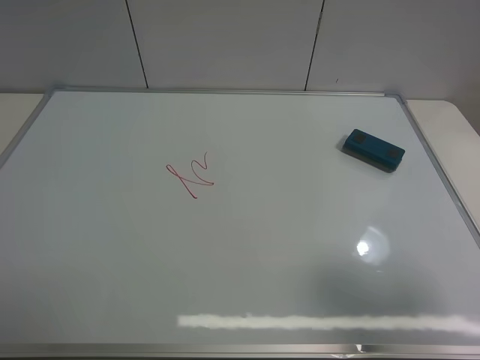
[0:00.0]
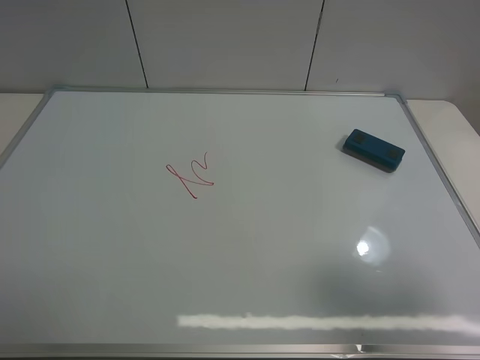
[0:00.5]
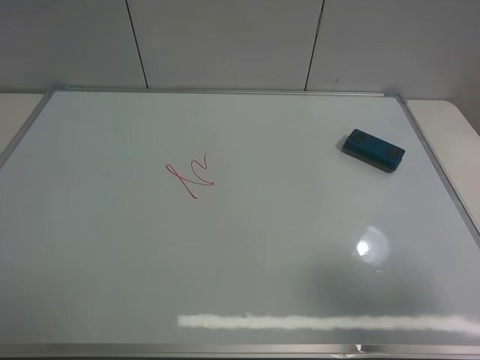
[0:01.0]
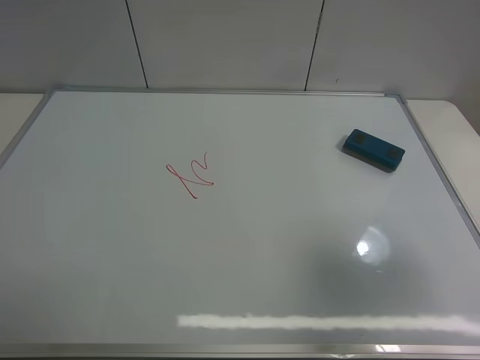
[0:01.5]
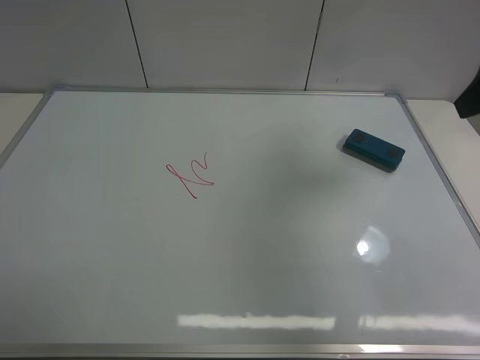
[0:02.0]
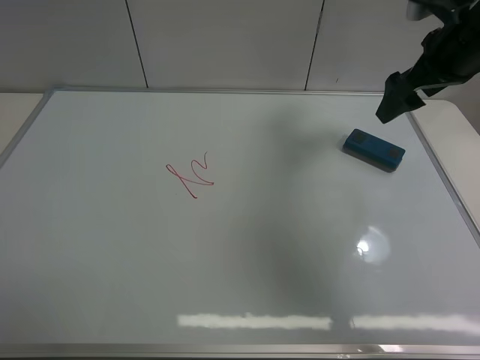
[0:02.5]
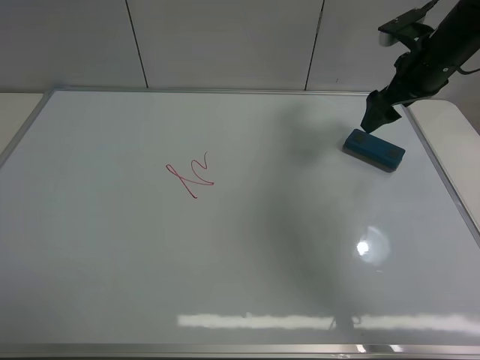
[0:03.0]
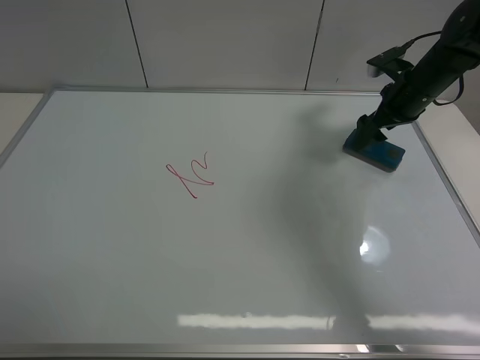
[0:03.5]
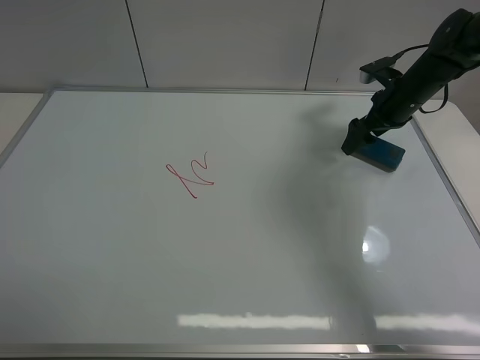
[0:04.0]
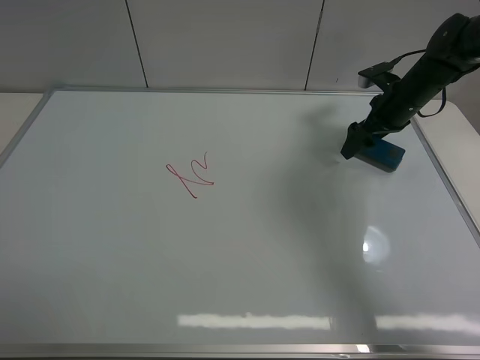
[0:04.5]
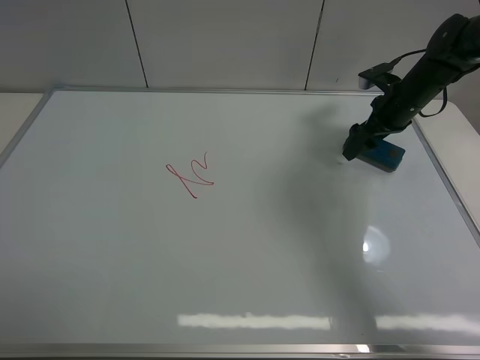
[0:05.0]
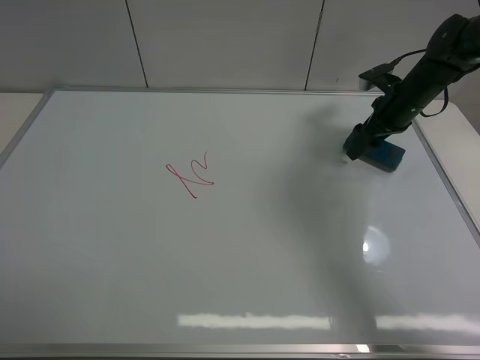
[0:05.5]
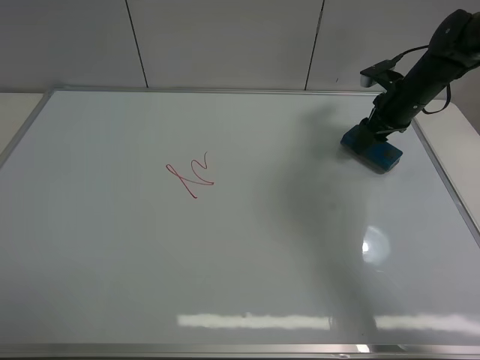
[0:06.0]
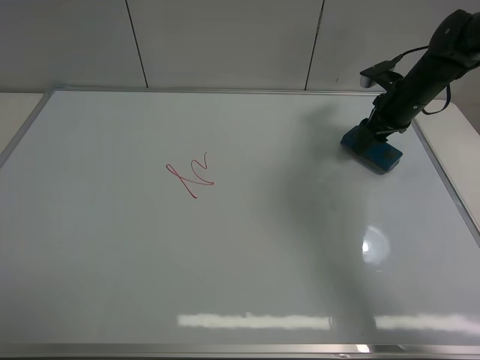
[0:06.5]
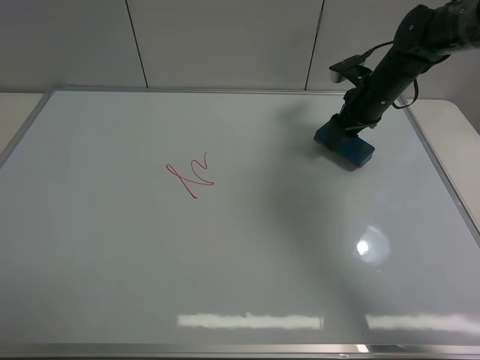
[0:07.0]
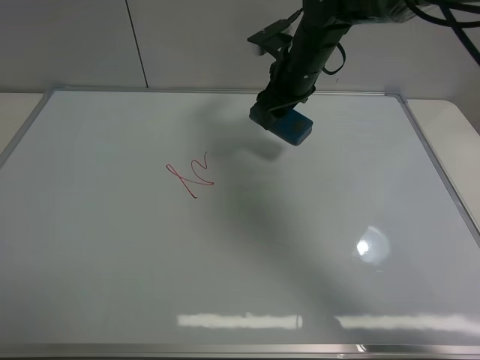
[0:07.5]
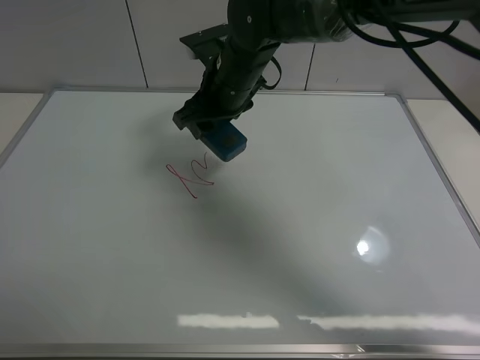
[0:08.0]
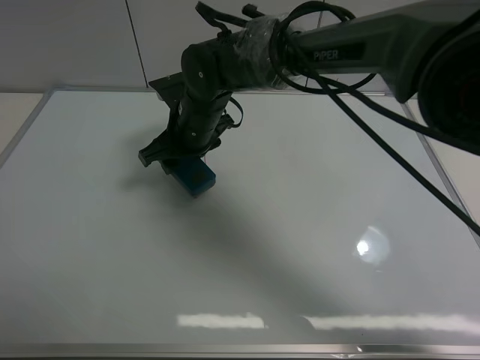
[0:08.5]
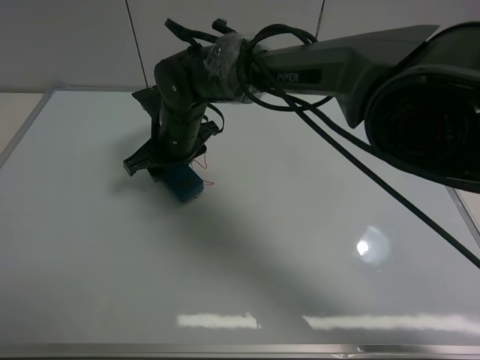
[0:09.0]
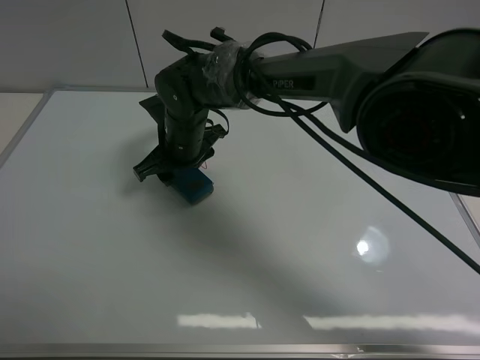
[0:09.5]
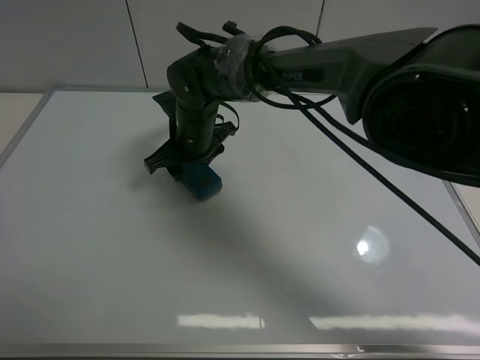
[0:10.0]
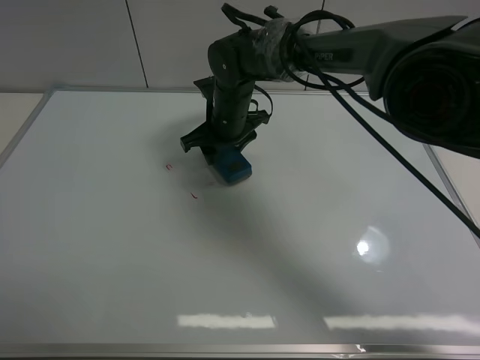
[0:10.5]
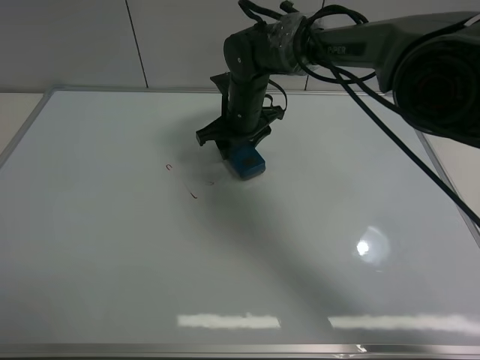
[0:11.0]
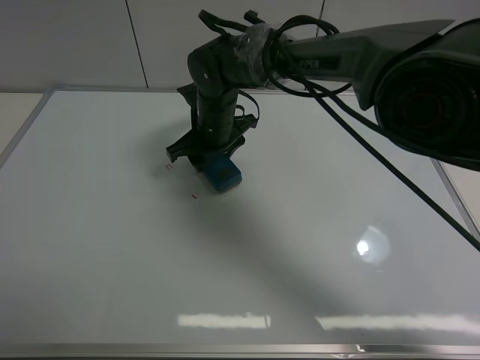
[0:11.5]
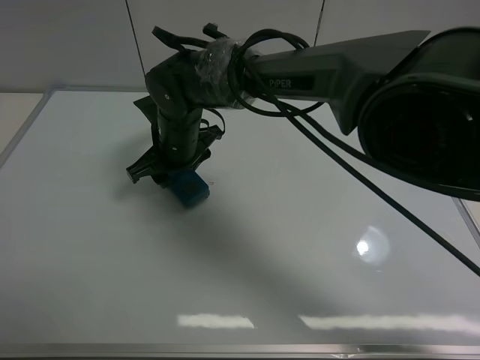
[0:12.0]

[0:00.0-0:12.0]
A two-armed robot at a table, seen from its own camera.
Task of the whole recording: use the right gripper to pick up the board eraser, wipe the notes on the whiteboard clean, and then put them back in place.
Step, 0:00.0 to 0:06.5: Pick up the board eraser with right gripper.
0:00.0 to 0:02.0: The right gripper travels forward by roughly 20 cm.
0:02.0 to 0:04.0: The right gripper goes some 30 cm forward and downward.
0:04.0 to 0:06.0: The right gripper closes up.
0:06.0 to 0:08.0: The right gripper shifts approximately 30 cm to the left.
0:08.0 to 0:10.0: The right gripper goes some 5 cm downward.
0:10.0 to 0:12.0: The right gripper travels to the right and back again, roughly 5 cm each way.

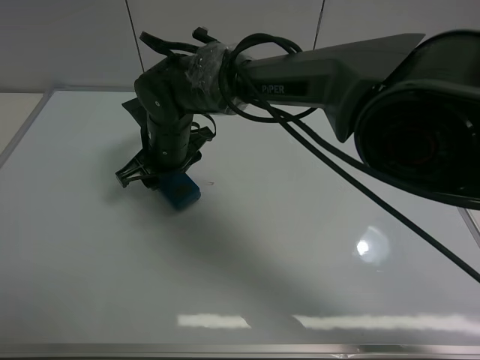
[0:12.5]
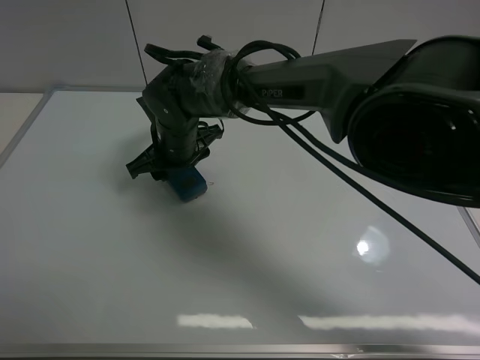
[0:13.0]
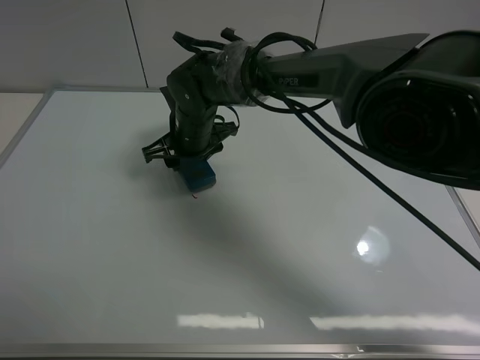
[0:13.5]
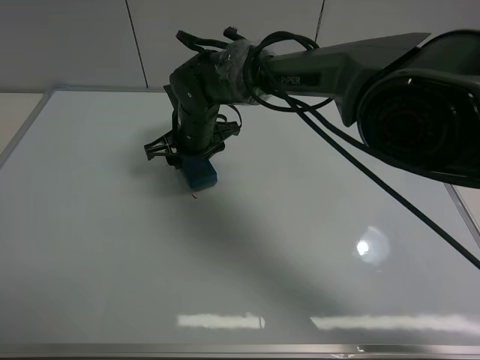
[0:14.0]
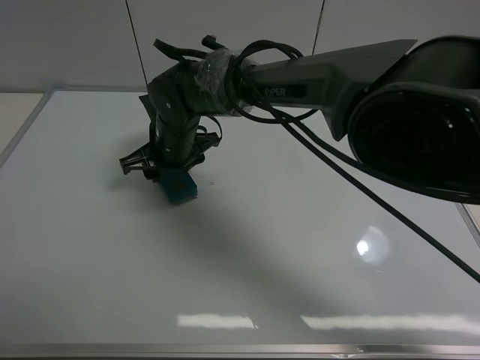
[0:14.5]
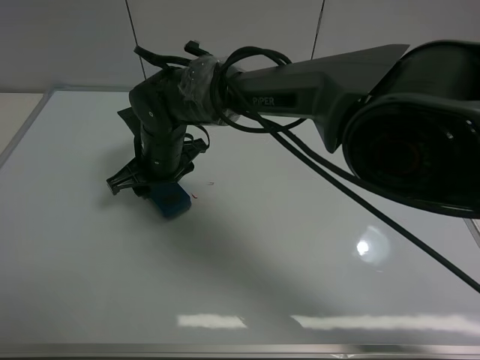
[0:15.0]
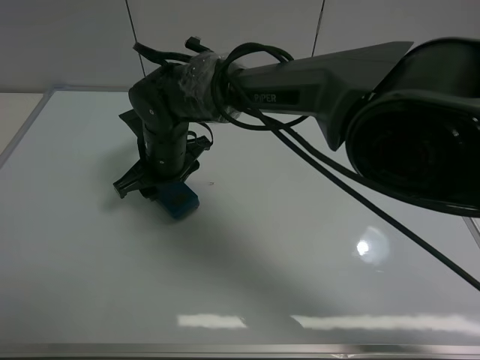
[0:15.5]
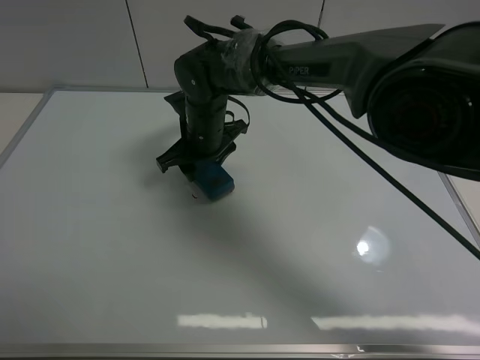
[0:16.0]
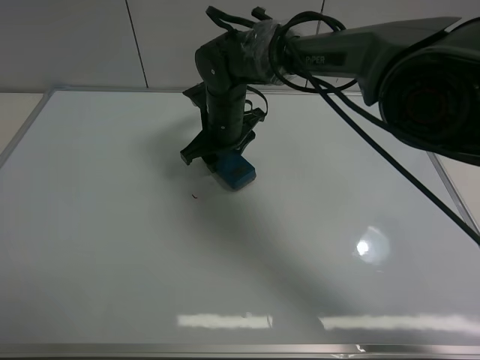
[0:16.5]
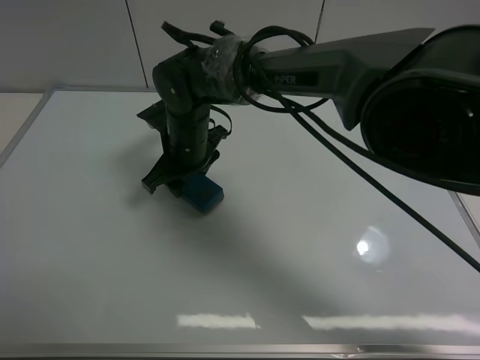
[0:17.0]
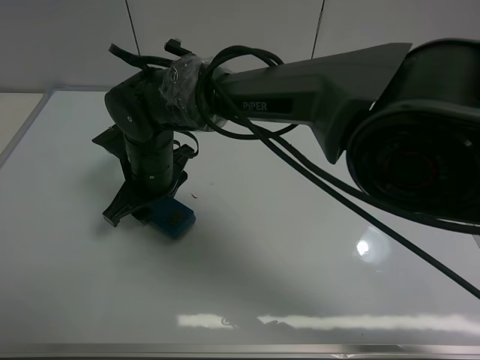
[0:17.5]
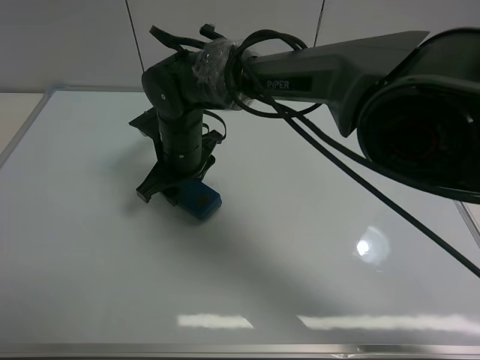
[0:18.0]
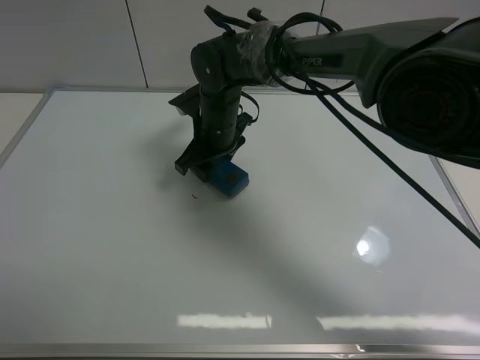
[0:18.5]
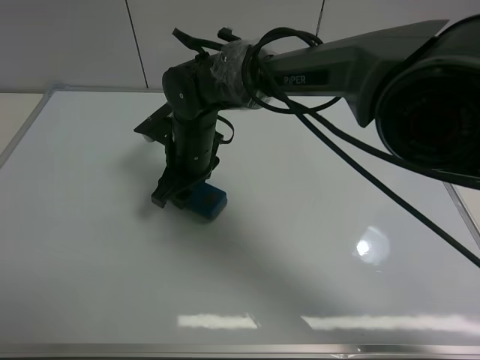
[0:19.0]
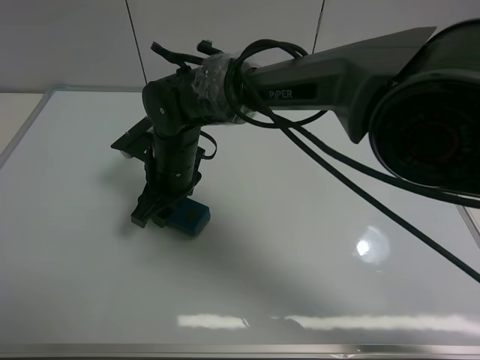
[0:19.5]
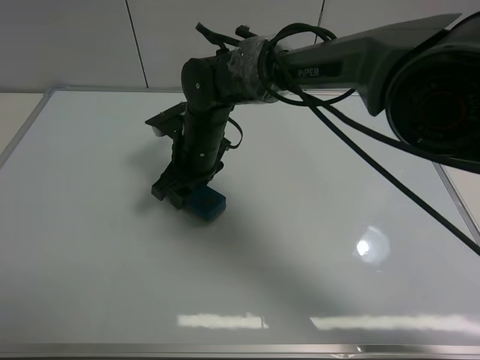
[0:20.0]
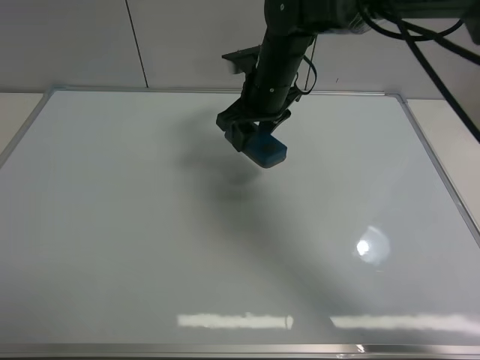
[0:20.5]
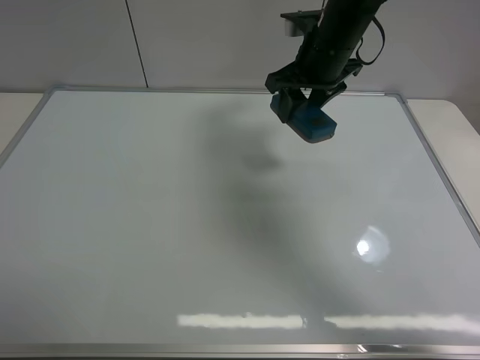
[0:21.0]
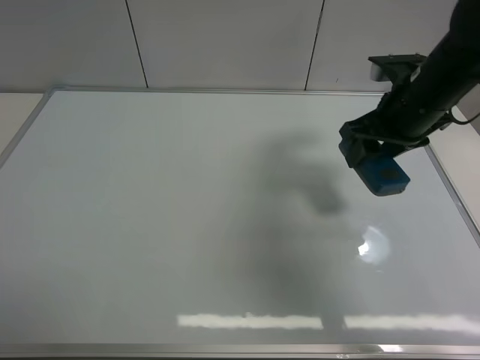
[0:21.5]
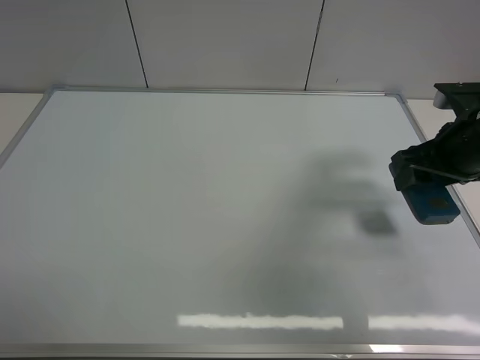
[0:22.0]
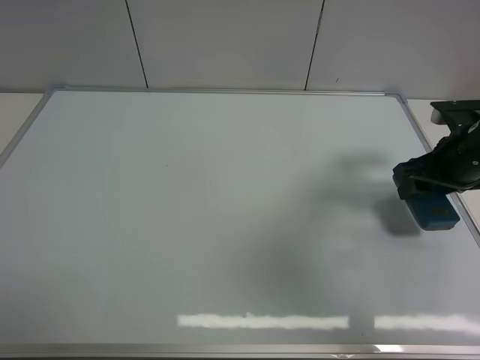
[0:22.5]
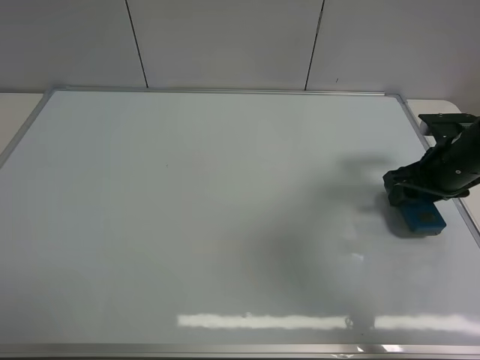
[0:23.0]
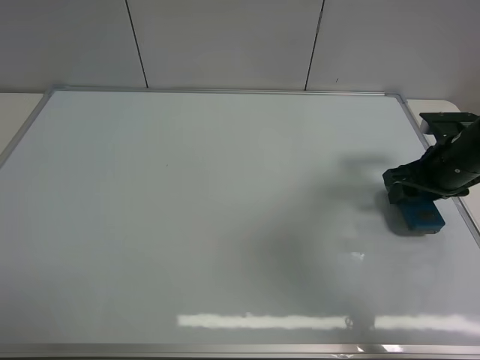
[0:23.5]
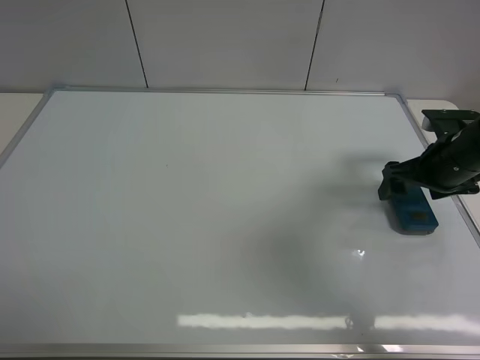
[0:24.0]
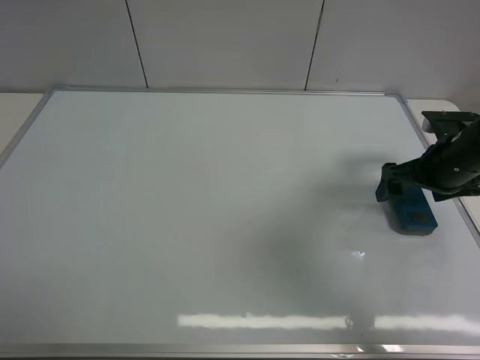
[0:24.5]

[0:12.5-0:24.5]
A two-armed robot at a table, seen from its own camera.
Task of the whole recording: use the right gripper to pick up the board eraser, wipe the notes on the whiteboard clean, and then put them back in place.
Step, 0:12.5 to 0:20.0: Wipe off the writing on the board with right gripper.
Step, 0:20.5 to 0:24.0: Move the board eraser to the right of the whiteboard with right gripper.
0:12.5 to 0:14.5: The grippers move only a little.
0:14.5 to 0:16.5: The right gripper moves to the right, some 5 cm.
0:16.5 to 0:18.5: The right gripper travels backward and back again, approximately 10 cm each way.
0:18.5 to 0:20.5: The right gripper is displaced to the right and upward by about 10 cm.
0:20.5 to 0:22.5: The right gripper shifts about 30 cm to the right and backward.
0:22.5 to 0:24.5: The right gripper opens up.

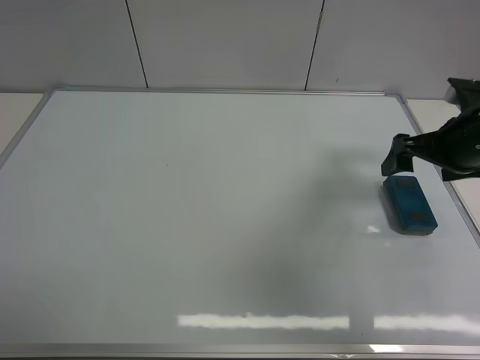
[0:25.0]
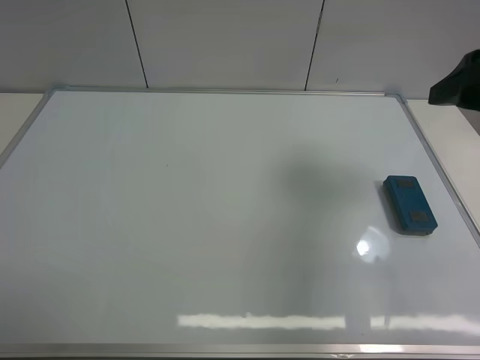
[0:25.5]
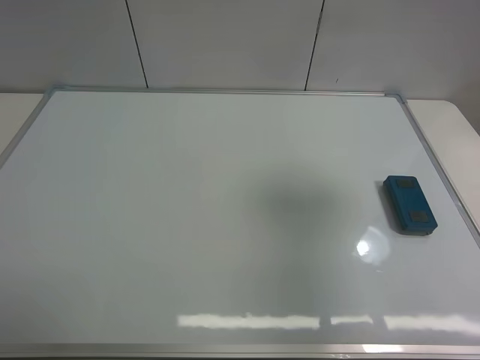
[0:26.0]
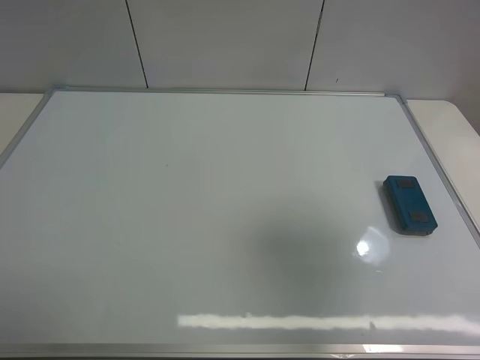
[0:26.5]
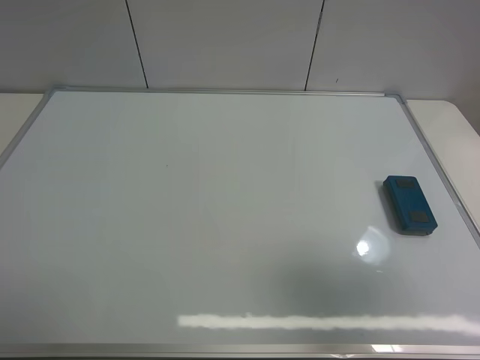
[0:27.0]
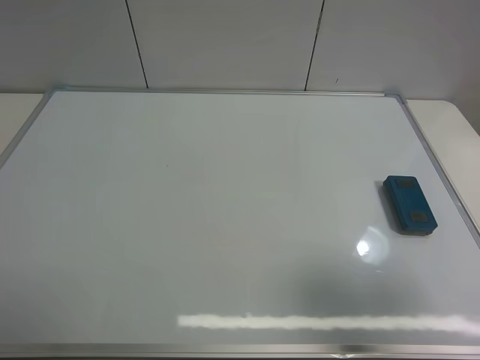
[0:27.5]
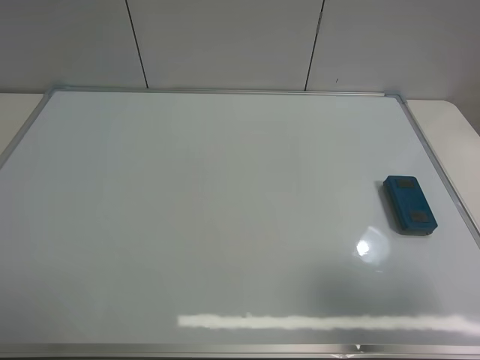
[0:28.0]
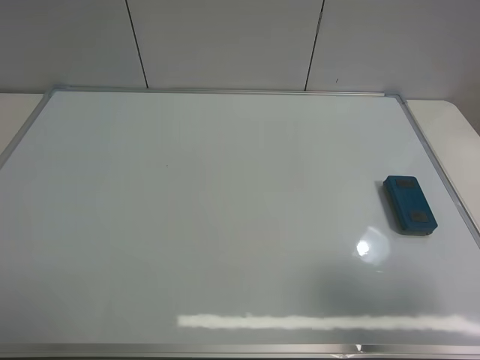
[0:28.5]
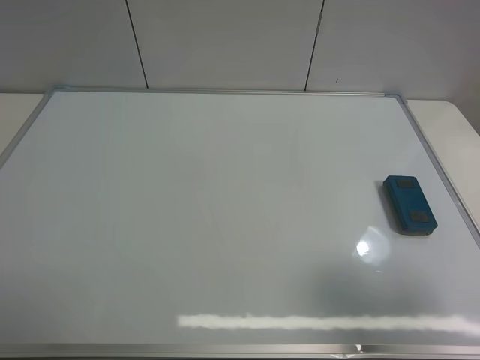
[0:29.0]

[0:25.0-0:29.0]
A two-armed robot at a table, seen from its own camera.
Task of the whole recording: use the right gripper to pick up the board eraser, wipe the notes on the whiteboard clean, and then put them back in place.
0:25.0 to 0:27.0: The right gripper shifts some 30 cm backward and upward.
0:27.0 to 0:29.0: The grippers stay close to where they were, moving slightly.
